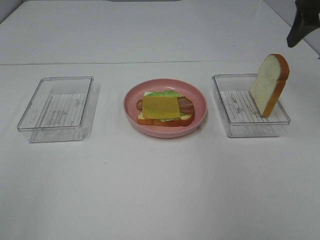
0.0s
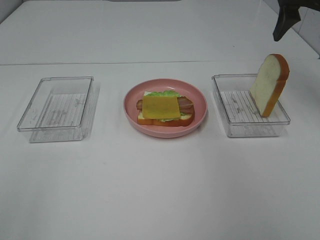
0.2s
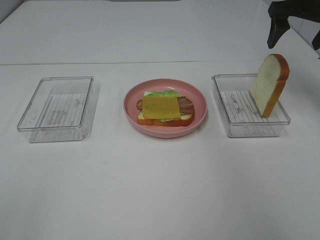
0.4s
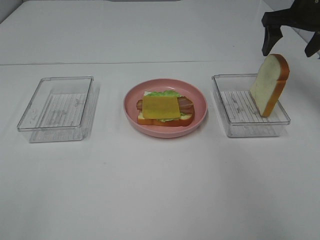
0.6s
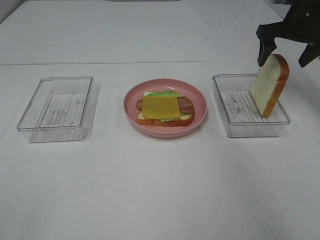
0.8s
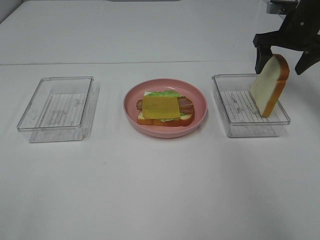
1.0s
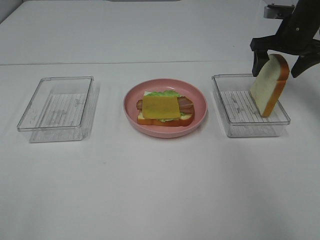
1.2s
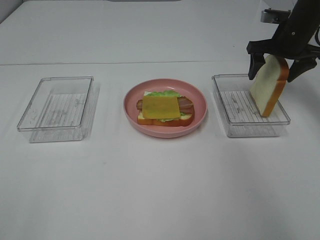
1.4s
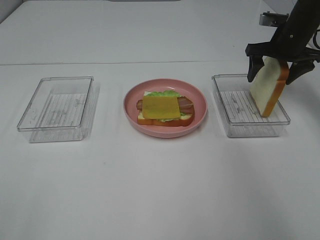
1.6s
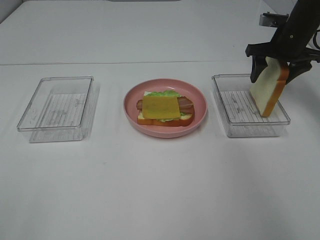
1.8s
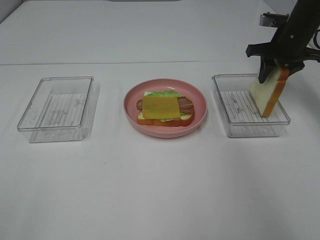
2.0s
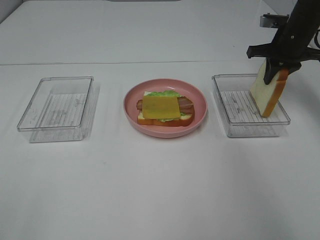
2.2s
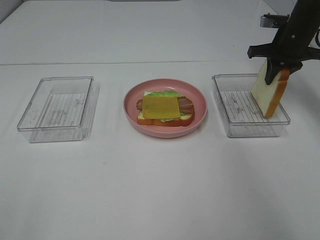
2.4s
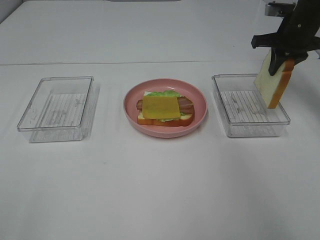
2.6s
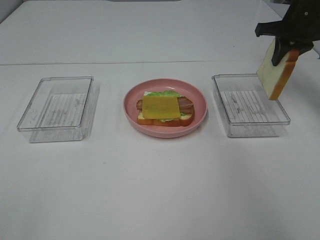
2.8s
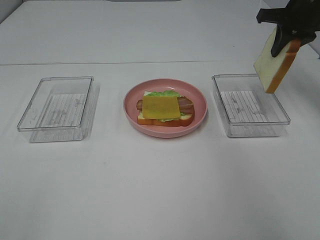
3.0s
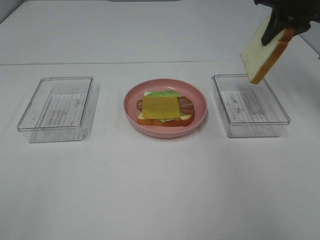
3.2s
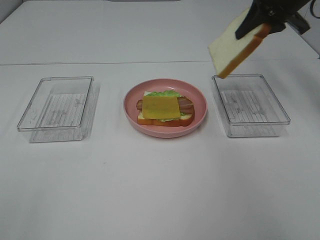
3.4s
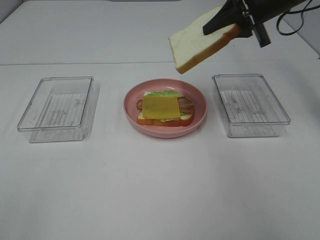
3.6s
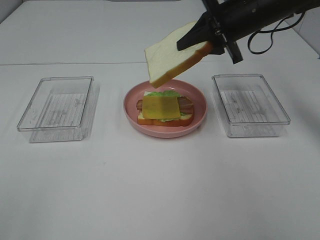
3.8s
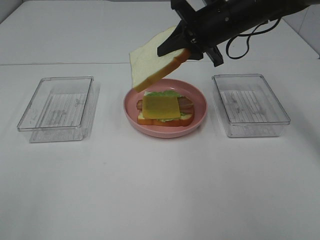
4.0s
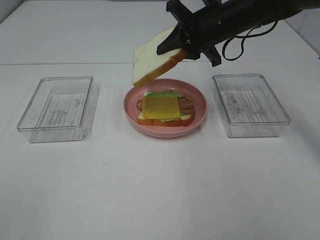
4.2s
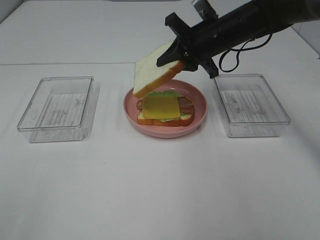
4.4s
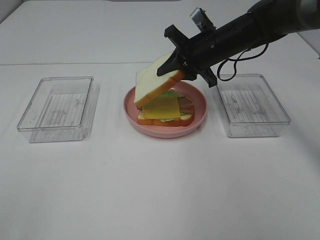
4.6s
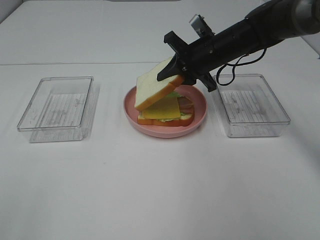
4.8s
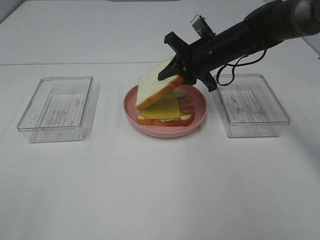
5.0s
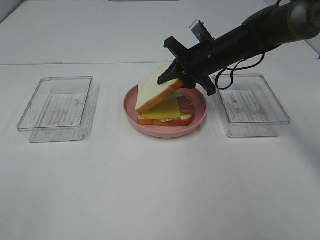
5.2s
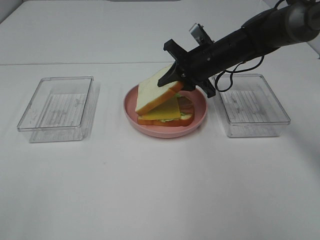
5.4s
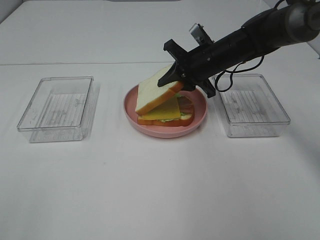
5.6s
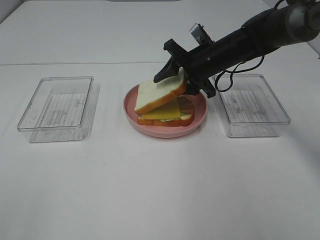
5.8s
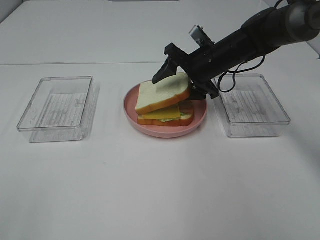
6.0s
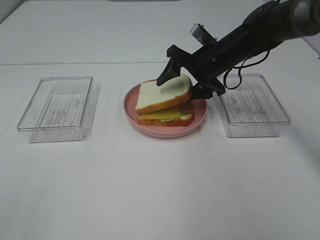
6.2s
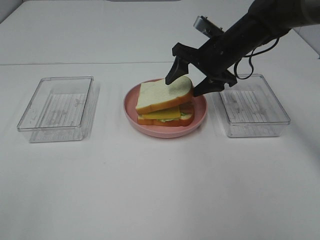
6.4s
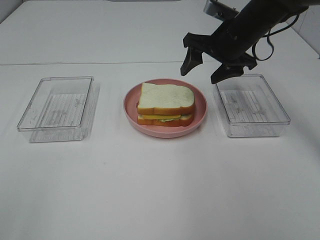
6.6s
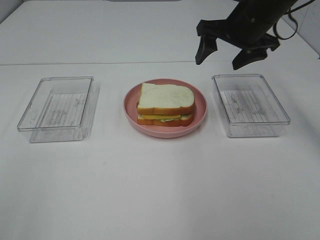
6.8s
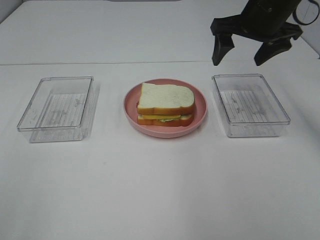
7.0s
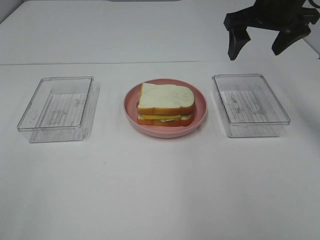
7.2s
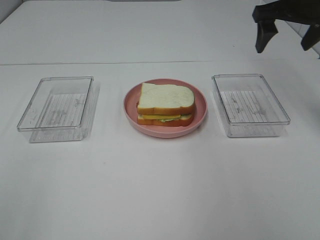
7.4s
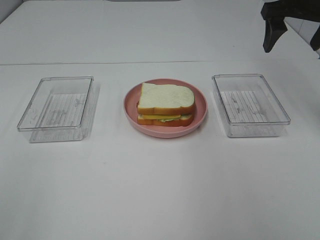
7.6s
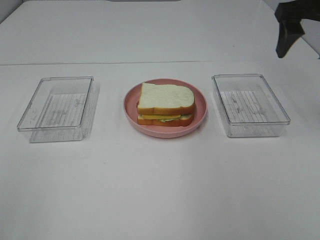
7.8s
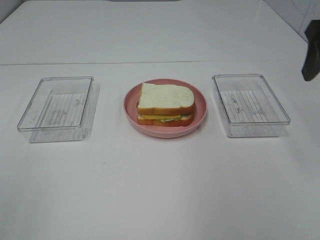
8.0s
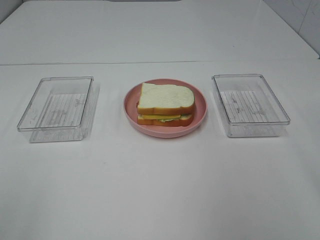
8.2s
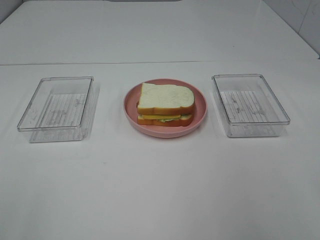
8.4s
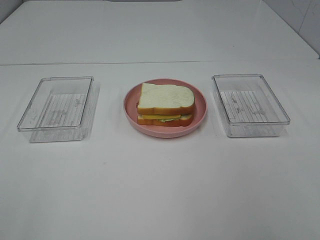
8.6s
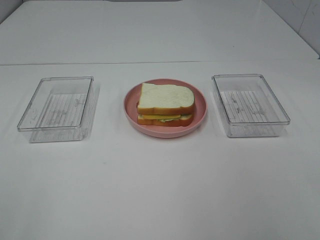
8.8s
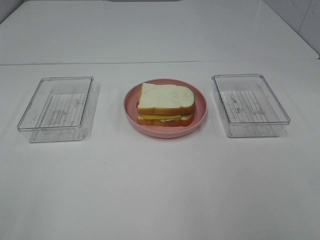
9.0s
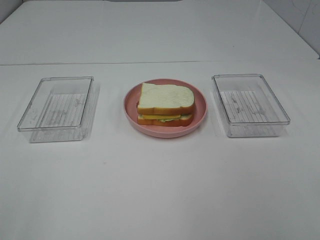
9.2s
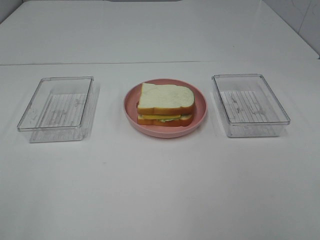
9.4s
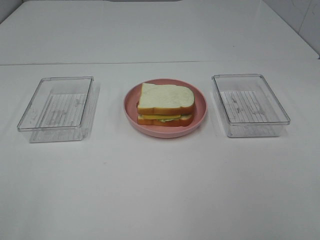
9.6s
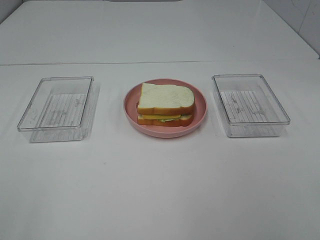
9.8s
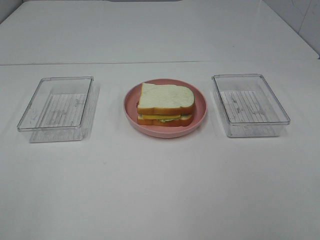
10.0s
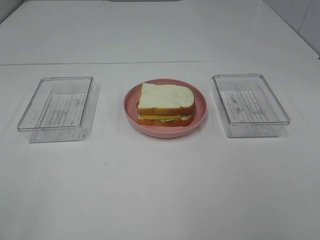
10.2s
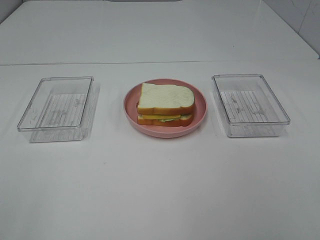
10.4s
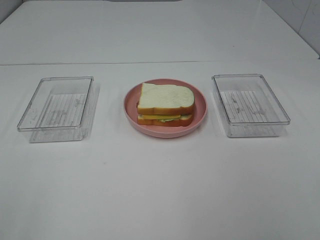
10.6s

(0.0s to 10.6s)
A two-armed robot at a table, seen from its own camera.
Task of the whole recording: Make sandwiches.
Step, 0.0s - 2.2s: Right hand:grab the bread slice.
Step, 2.4s - 6.6s: Right hand:place the bread slice on the cheese slice.
0.0s - 1.6s: The right gripper moves downward and forward, approximately 20 cm.
1.6s - 3.0s: The right gripper heads upward, covering about 10 cm, and closes.
3.0s - 4.6s: The right gripper shifts some 20 cm to the left and downward.
4.6s - 6.0s: The right gripper opens up.
6.0s - 7.6s: The right gripper is displaced upward and to the right by roughly 20 cm.
7.6s - 9.0s: The right gripper goes some 40 cm backward.
